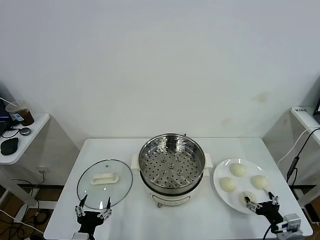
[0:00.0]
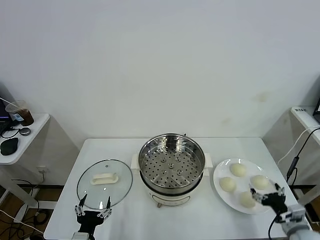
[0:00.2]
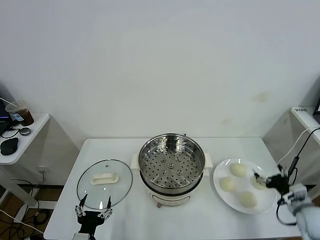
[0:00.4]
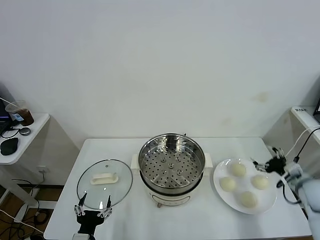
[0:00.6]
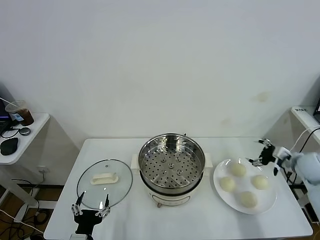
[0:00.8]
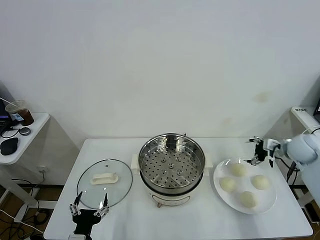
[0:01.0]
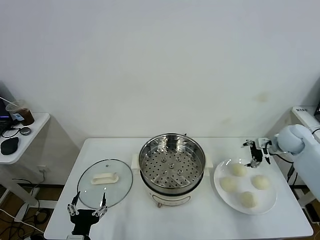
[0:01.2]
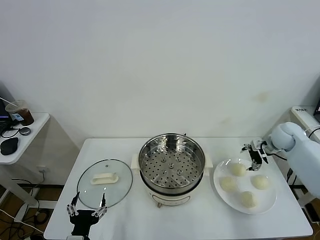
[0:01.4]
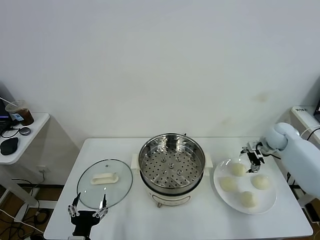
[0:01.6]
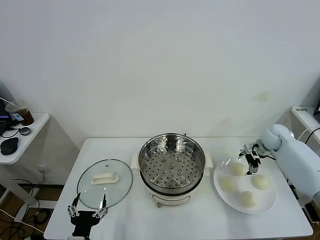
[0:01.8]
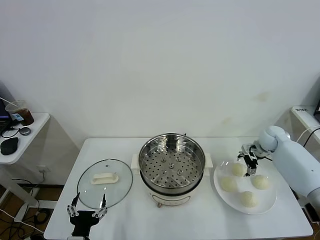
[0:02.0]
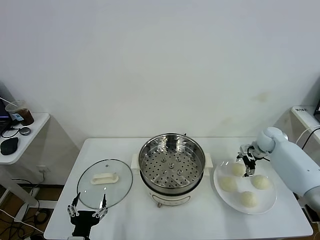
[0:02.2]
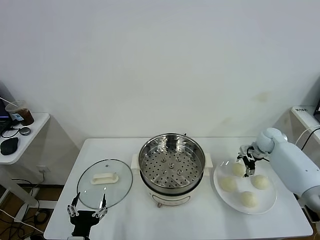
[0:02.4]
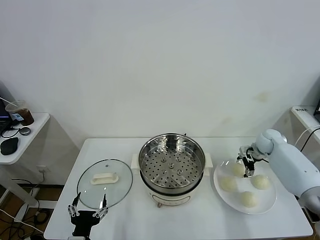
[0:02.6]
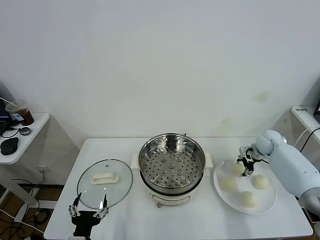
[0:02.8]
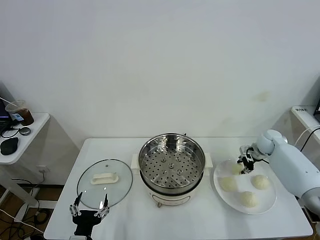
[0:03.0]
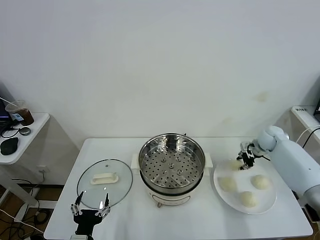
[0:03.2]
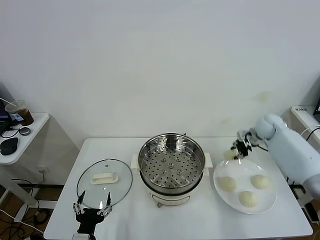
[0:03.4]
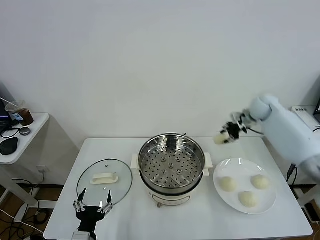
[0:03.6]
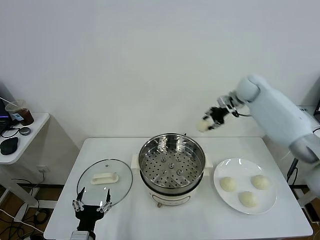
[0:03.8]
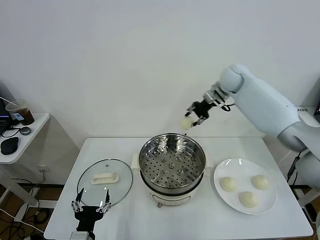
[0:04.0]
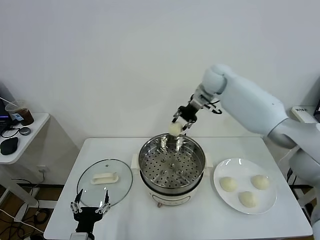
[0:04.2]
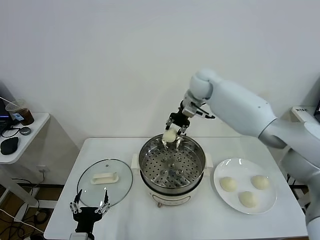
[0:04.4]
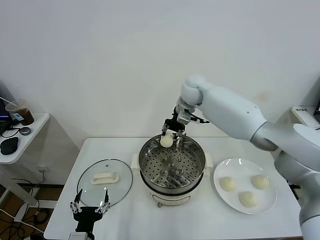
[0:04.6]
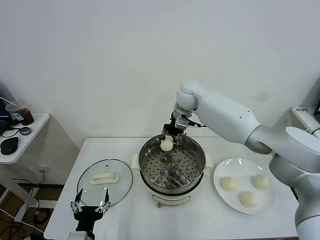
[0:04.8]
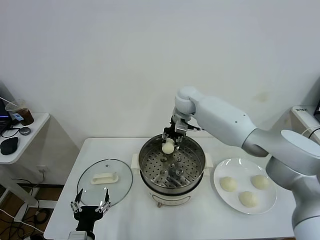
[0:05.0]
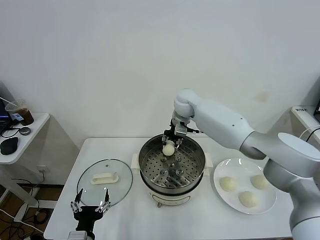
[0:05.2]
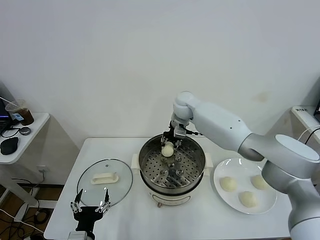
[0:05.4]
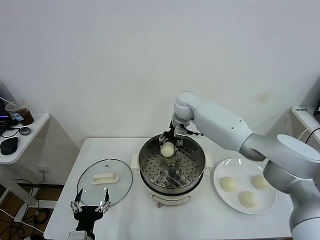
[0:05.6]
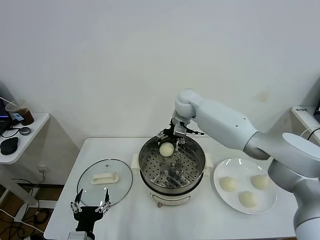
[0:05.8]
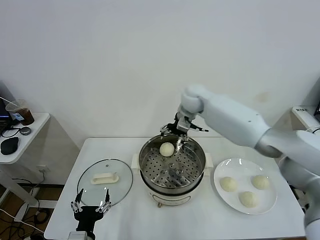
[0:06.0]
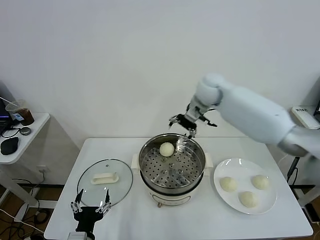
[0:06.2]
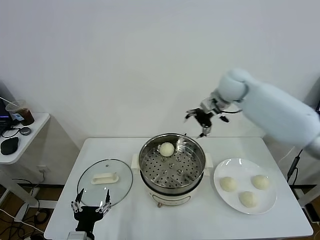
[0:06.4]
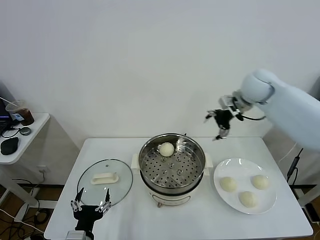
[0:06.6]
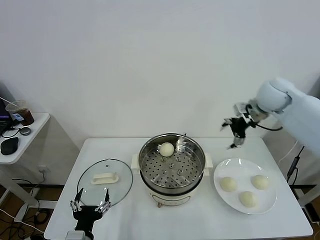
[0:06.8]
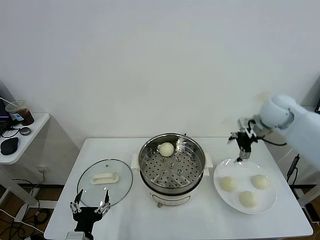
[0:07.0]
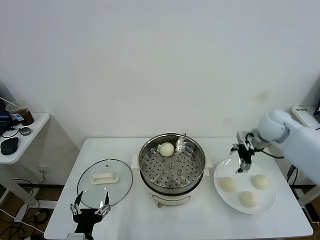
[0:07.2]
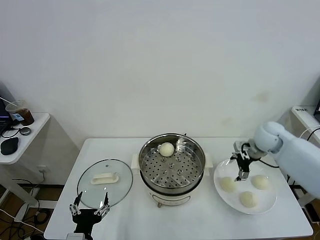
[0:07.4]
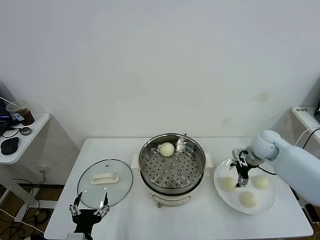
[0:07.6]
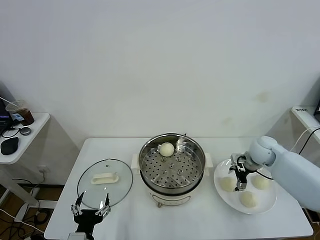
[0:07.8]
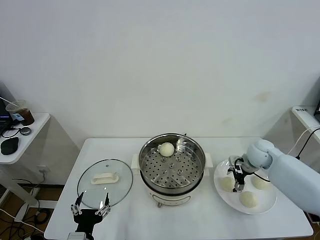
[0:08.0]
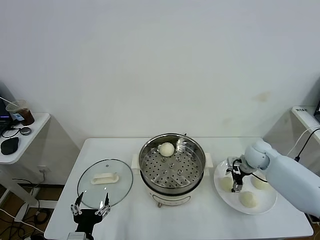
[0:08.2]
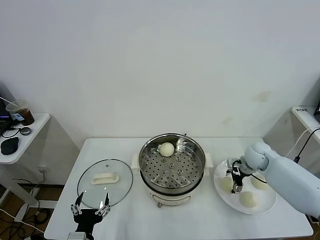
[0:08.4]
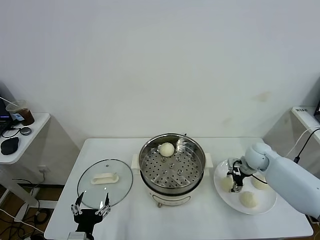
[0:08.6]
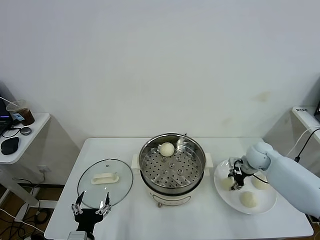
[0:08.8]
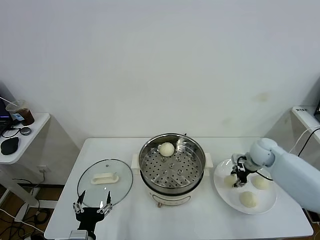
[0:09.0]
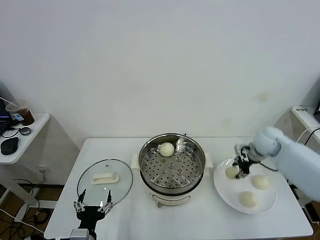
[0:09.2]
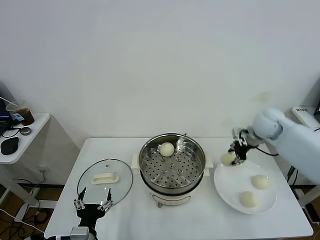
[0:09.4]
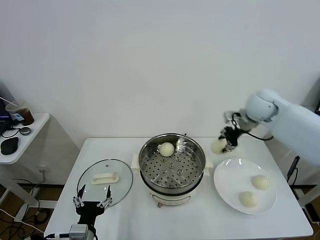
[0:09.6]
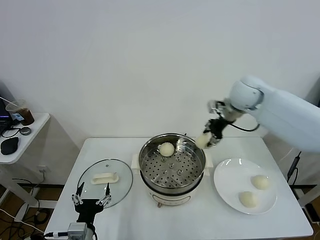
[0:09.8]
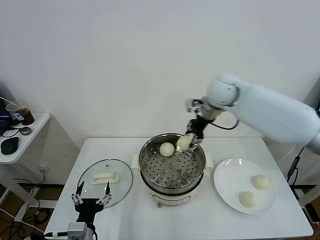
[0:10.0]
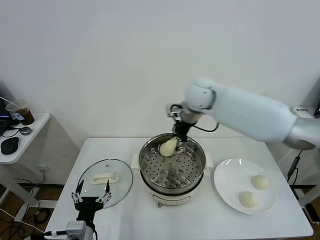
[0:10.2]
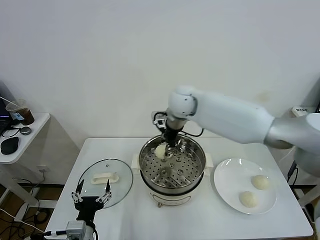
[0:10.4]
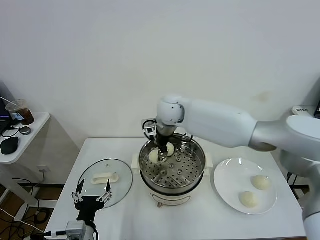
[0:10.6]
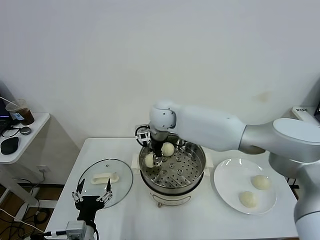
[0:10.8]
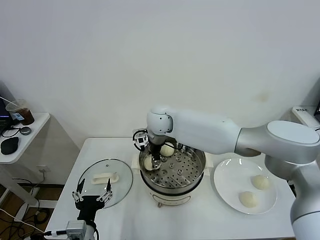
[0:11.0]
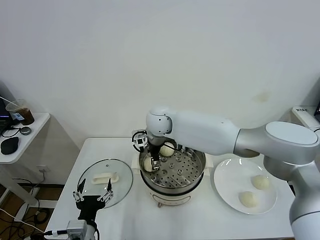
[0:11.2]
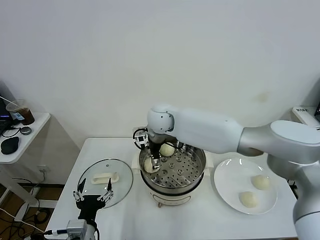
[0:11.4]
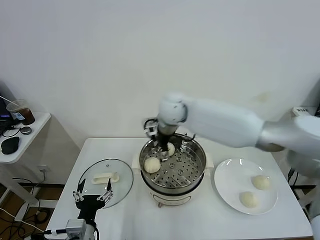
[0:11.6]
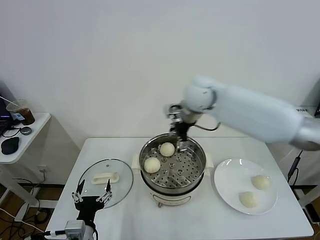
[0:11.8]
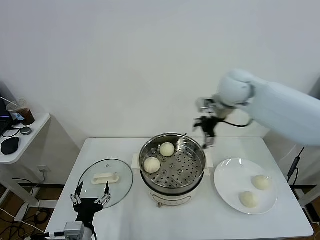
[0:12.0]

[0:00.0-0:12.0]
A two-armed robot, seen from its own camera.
Task of the whole recording: take steamed baozi put them in steamer.
Step, 0:00.0 to 0:02.8: Grasp the baozi in the plate with right gripper.
Step, 0:03.2 to 0:05.8: Place the baozi on the steamer with right gripper.
Step, 0:06.0 to 0:08.8: Grasp the baozi in the plate with right gripper.
Step, 0:09.0 to 0:11.4: Place the baozi on the steamer with right gripper.
0:01.6 to 0:03.0: The right gripper closes up.
0:03.0 to 0:04.4: The right gripper heads to the left and upward, covering roughly 35 cm.
0:04.4 to 0:06.0: The right gripper opens its fingers.
0:06.0 to 0:07.6: The right gripper is displaced to the right, downward and backward by some 30 cm.
0:07.6 to 0:09.0: The right gripper closes its fingers.
0:09.0 to 0:10.4: The right gripper is displaced to the left and upward by some 35 cm.
0:10.4 to 0:12.0: The right gripper heads to the right, covering about 20 cm, and opens its fingers.

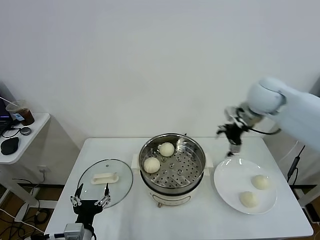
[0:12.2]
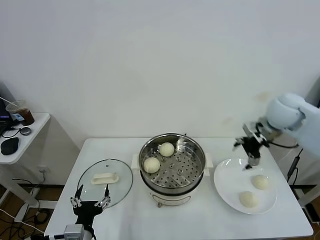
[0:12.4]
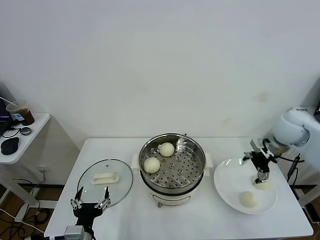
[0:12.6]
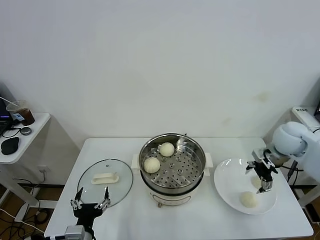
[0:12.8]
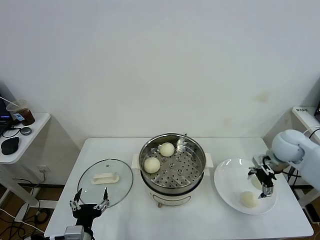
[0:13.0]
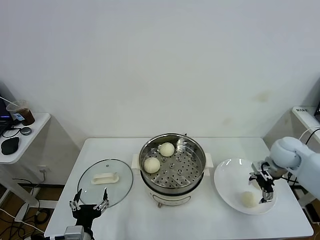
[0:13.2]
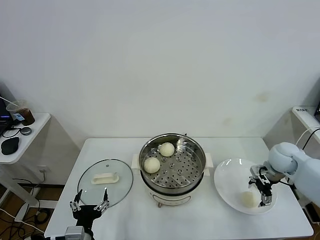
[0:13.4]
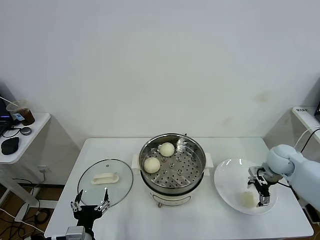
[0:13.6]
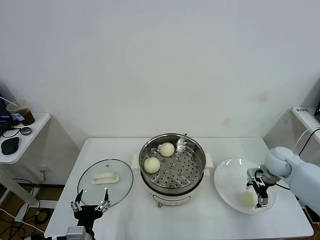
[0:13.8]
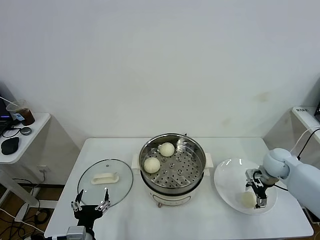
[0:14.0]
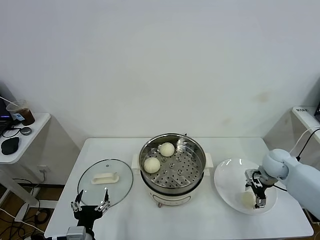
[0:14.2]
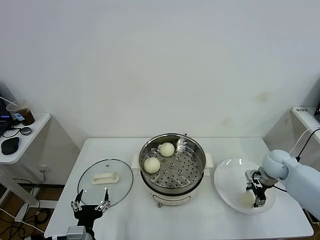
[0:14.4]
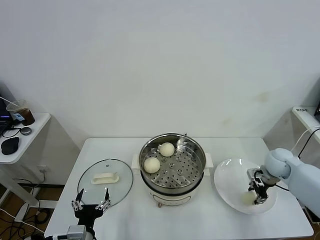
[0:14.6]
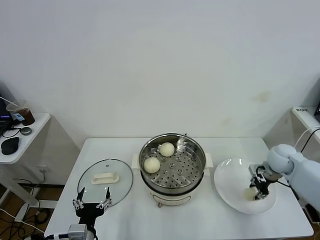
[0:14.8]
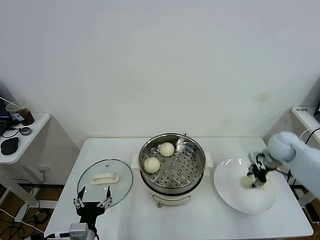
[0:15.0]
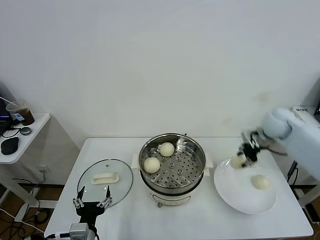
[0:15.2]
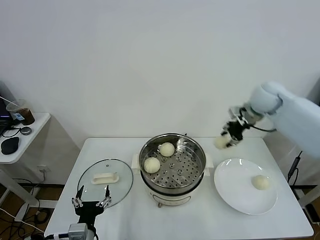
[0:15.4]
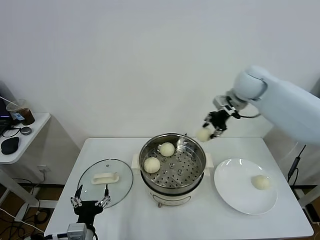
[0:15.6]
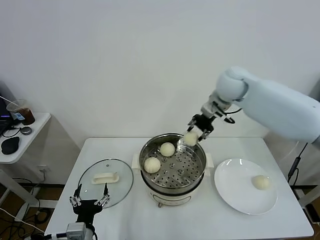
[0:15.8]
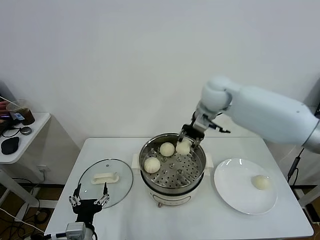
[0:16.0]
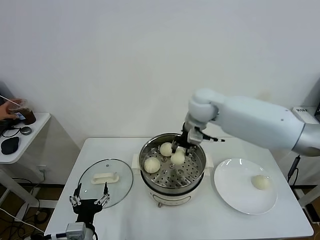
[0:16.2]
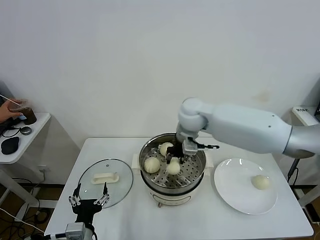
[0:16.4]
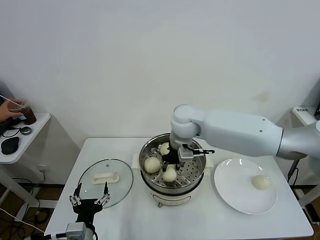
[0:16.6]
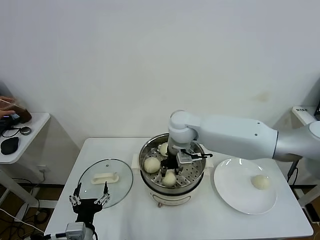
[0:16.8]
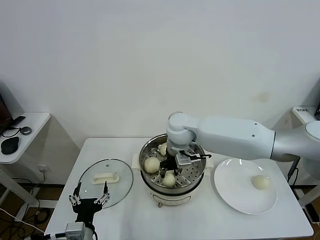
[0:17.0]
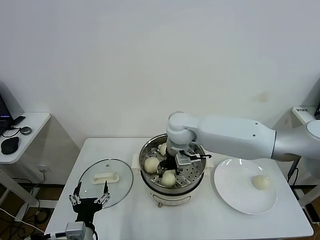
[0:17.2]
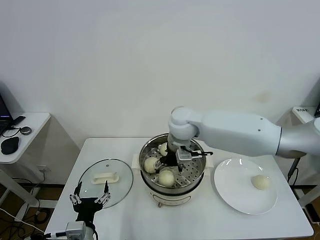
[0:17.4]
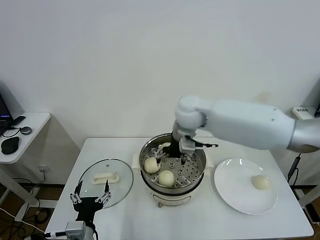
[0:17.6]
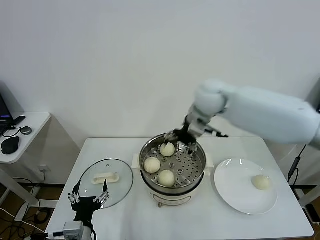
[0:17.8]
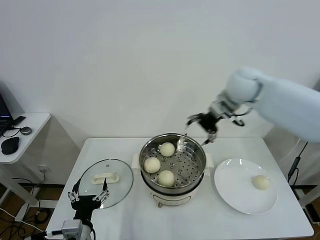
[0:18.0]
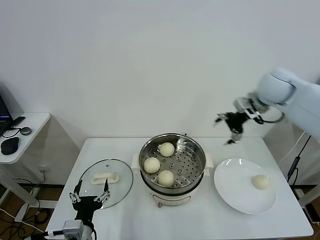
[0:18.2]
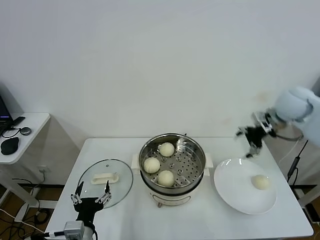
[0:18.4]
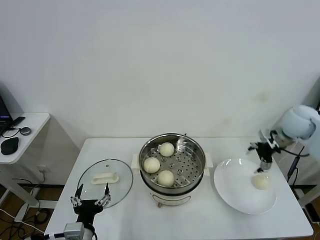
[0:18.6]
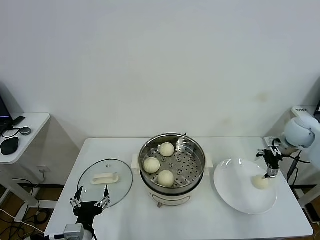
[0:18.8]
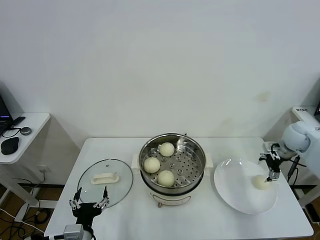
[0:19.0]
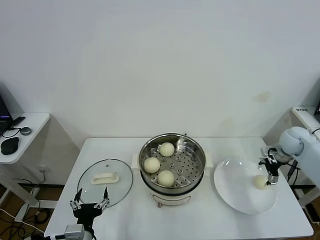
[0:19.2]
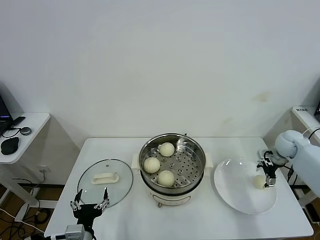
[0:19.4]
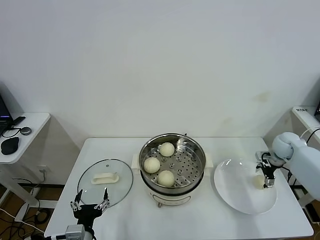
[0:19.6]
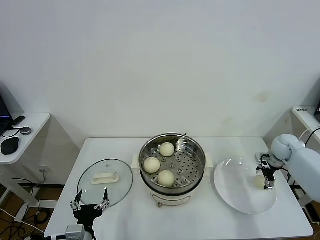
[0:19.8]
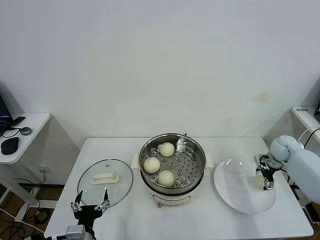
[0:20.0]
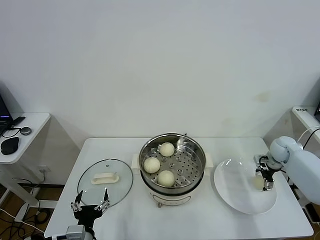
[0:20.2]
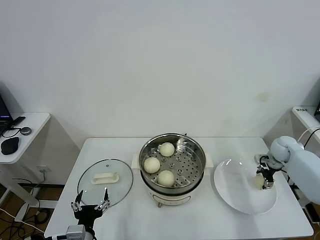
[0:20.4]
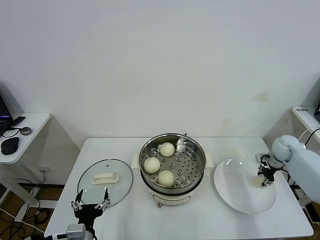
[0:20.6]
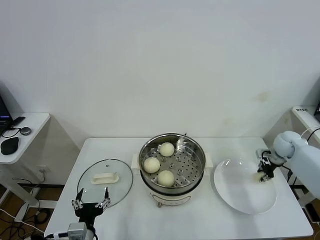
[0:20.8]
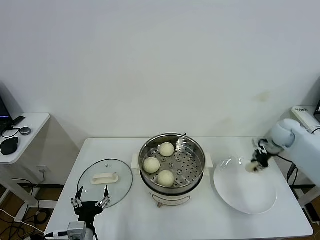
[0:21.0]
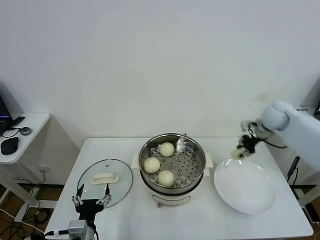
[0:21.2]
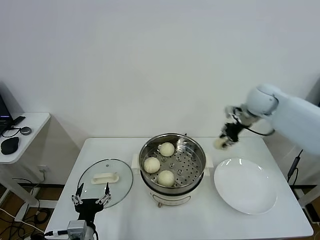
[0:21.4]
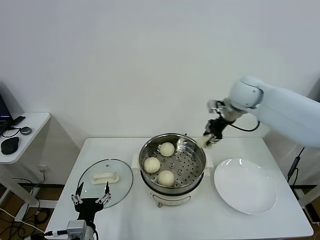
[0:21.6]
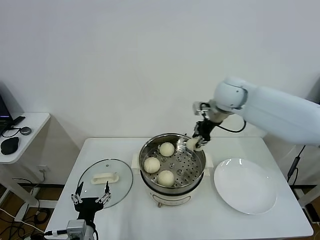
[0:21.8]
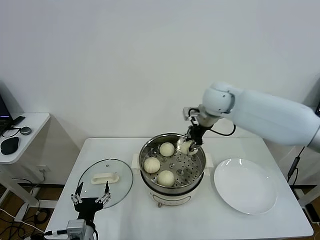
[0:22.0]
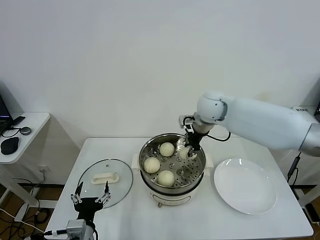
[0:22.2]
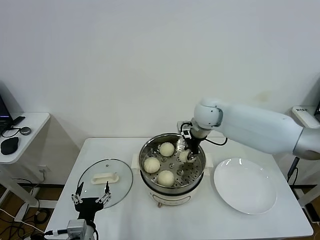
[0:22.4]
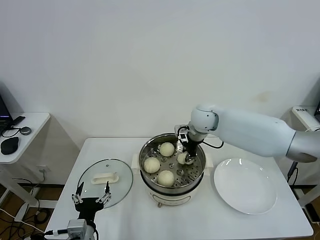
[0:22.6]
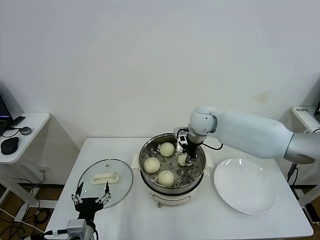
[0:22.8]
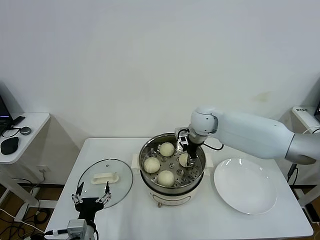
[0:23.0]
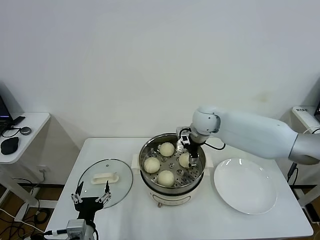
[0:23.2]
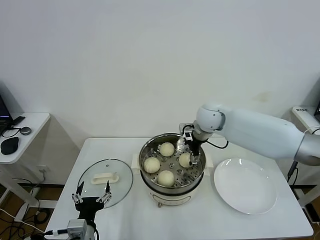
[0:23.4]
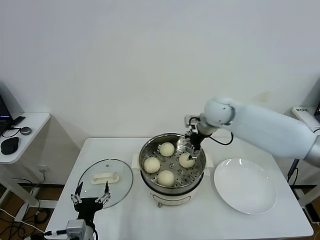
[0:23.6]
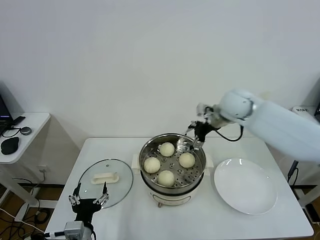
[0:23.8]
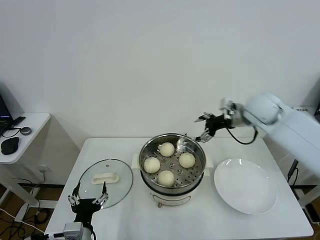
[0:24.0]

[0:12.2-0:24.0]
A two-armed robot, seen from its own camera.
Task of the whole recording: take steamed baozi put them in steamer.
Step, 0:12.2 to 0:14.6: Grasp the baozi in the plate with right gripper.
Step, 0:14.8 to 0:17.4: Place the baozi on the steamer with right gripper.
Step, 0:17.6 to 0:20.6: Grasp the baozi in the plate with right gripper.
Step, 0:20.8 to 0:23.4: Place the baozi on the steamer with right gripper.
0:12.2 to 0:13.6: The right gripper travels downward and to the right by approximately 25 cm.
0:13.6 to 0:15.2: The right gripper moves upward and forward, approximately 15 cm, and closes its fingers.
0:15.2 to 0:16.6: The right gripper shifts some 30 cm to the left.
0:16.6 to 0:18.2: The right gripper heads to the right, covering approximately 25 cm, and opens.
0:18.2 to 0:19.6: The right gripper goes roughly 25 cm downward and to the right.
0:19.6 to 0:21.0: The right gripper moves upward, about 5 cm, and closes.
0:21.0 to 0:22.6: The right gripper heads to the left, covering some 30 cm.
0:22.6 to 0:24.0: The right gripper moves to the right, roughly 15 cm, and opens up.
